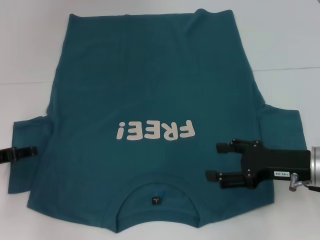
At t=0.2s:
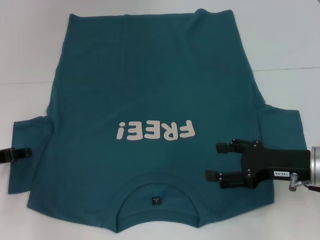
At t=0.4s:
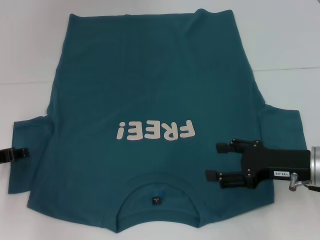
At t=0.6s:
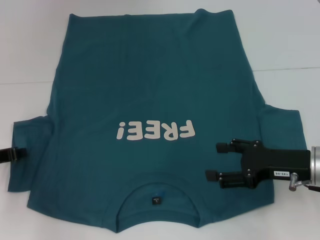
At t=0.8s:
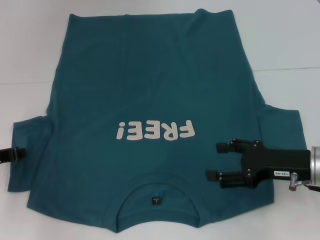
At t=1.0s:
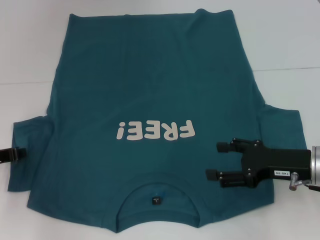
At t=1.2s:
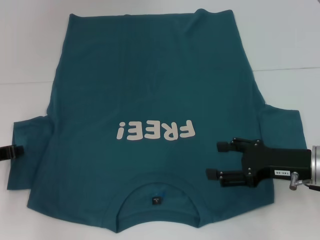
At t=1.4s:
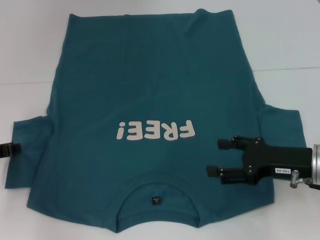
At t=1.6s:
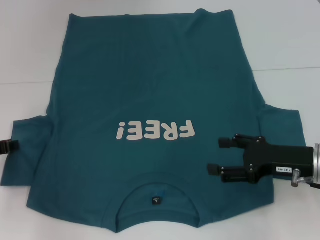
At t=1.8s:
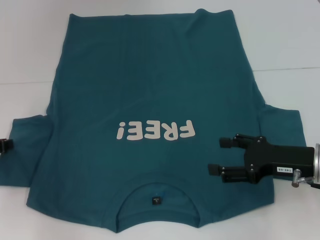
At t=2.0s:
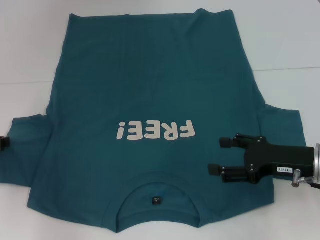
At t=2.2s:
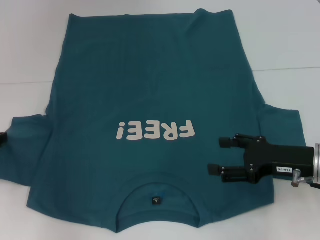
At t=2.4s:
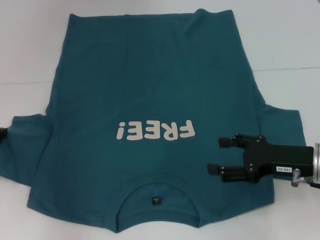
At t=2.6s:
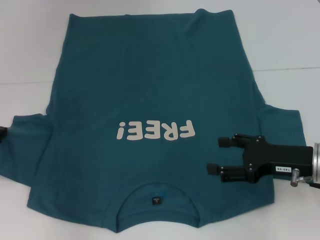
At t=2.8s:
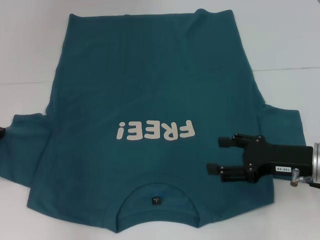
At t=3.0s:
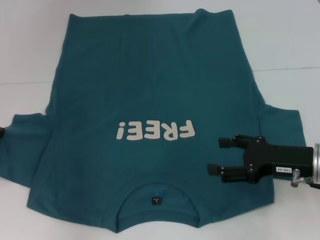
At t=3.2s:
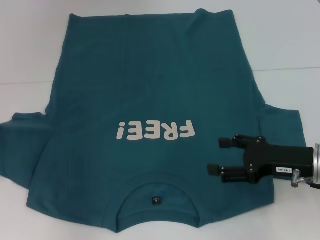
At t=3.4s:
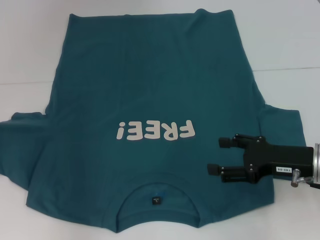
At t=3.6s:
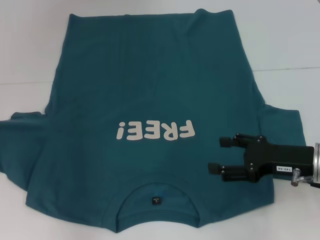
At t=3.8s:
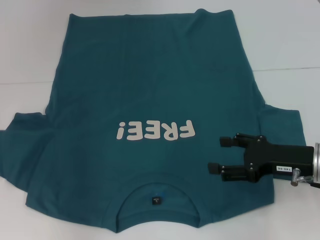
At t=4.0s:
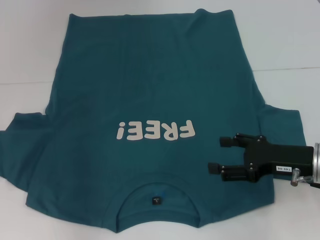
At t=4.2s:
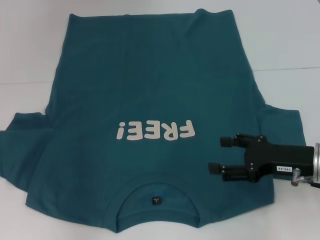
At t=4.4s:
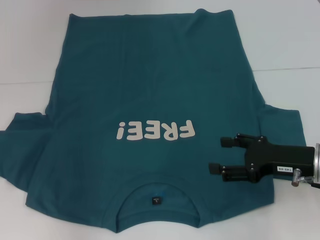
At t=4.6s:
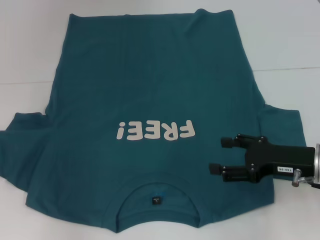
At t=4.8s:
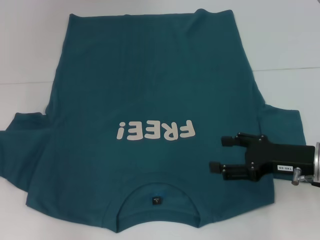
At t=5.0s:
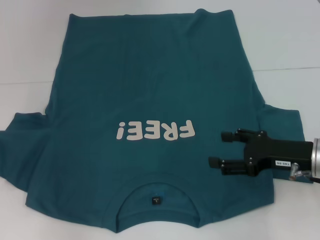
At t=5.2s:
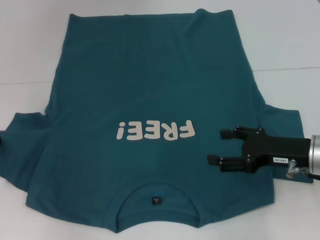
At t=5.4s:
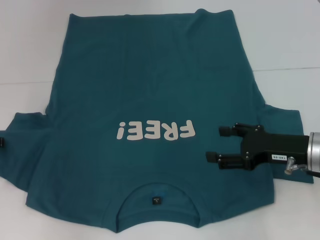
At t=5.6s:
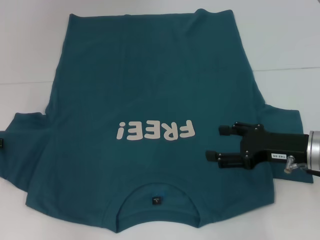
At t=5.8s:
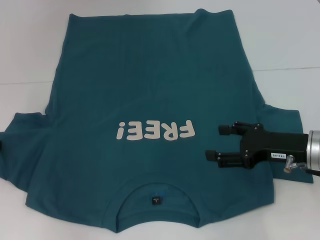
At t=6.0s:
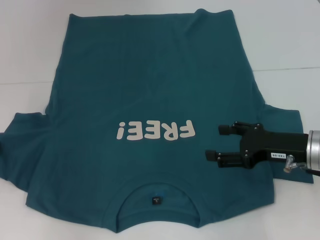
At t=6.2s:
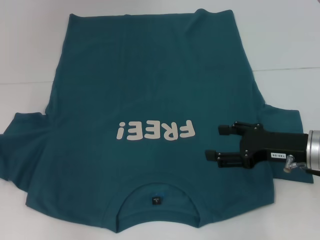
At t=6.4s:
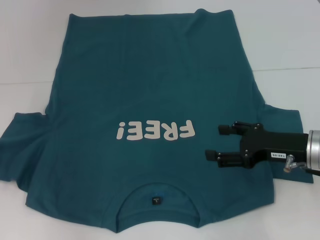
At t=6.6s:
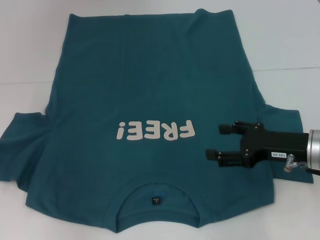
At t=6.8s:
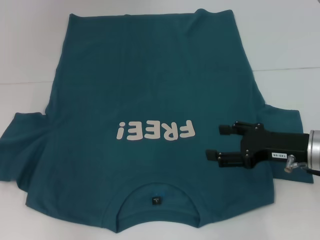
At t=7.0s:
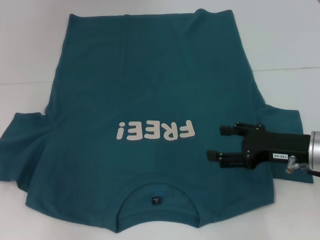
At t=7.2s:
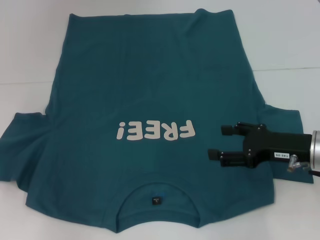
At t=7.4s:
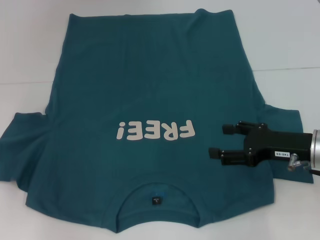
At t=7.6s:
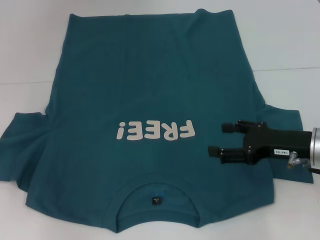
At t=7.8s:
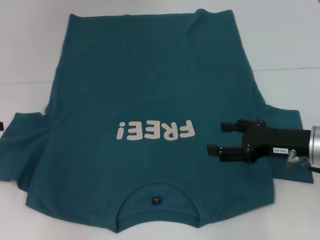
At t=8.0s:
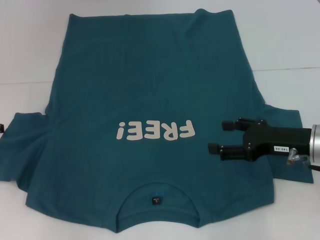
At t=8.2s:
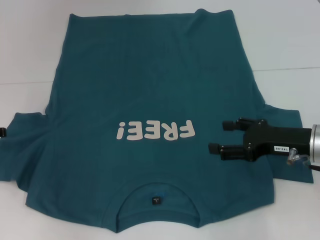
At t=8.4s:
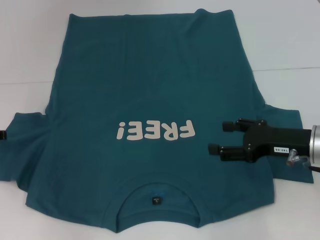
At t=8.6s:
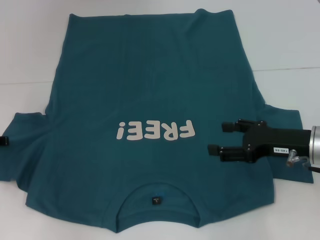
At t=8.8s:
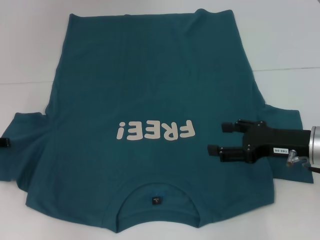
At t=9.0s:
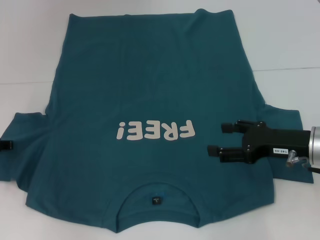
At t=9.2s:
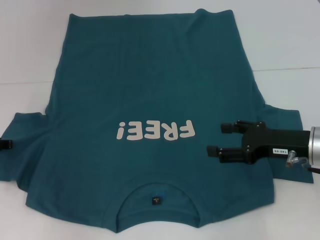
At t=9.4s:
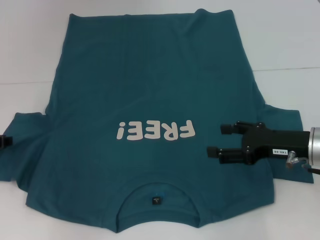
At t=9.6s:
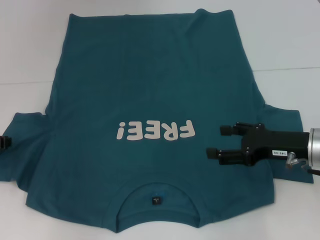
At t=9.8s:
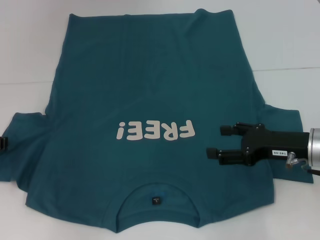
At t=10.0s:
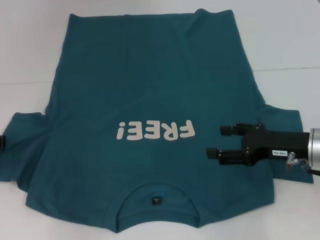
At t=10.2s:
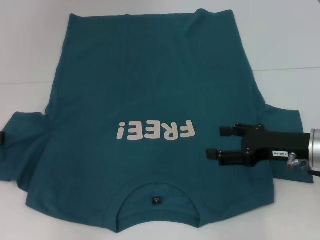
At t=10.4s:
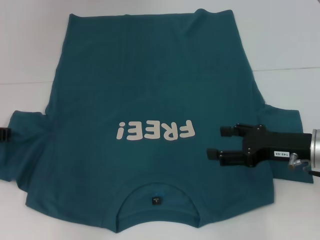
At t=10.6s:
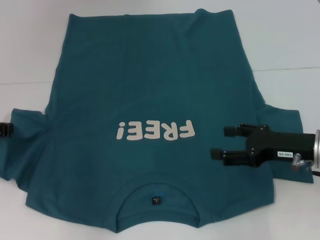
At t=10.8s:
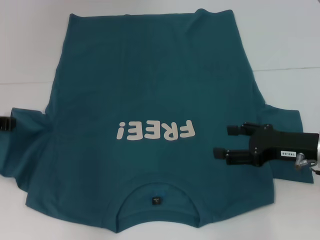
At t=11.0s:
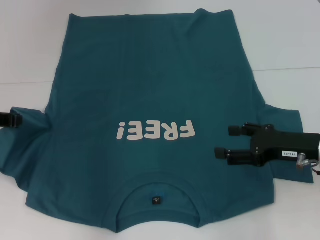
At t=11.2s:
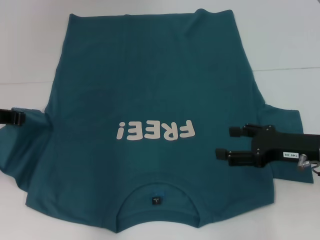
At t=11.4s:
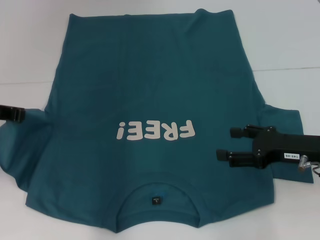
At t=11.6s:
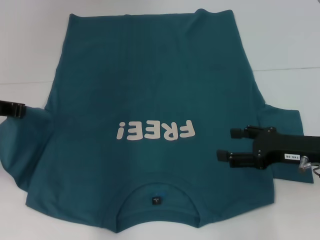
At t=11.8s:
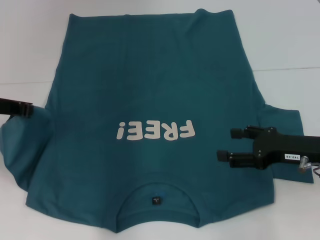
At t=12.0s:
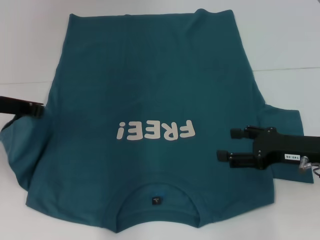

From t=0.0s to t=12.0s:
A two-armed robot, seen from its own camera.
From t=0.0s to t=1.6s: The left gripper closes.
From t=10.4s to t=12.0s: The left gripper moves upward and to the right, some 10 cm.

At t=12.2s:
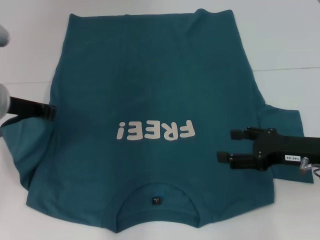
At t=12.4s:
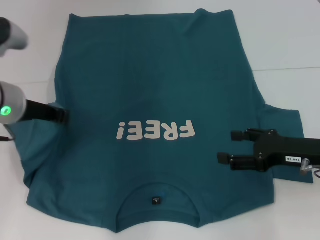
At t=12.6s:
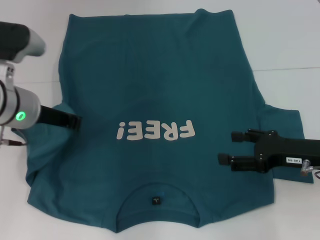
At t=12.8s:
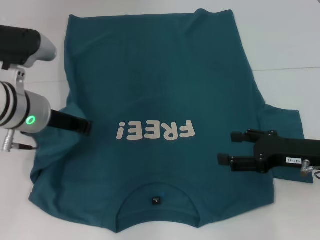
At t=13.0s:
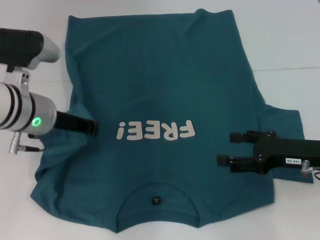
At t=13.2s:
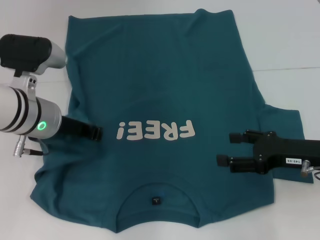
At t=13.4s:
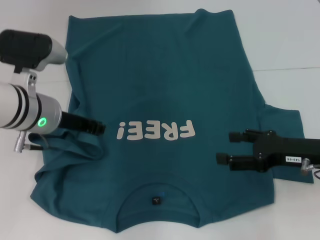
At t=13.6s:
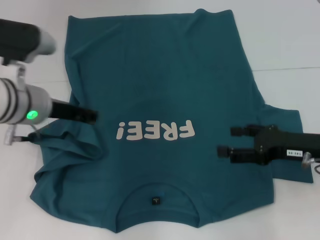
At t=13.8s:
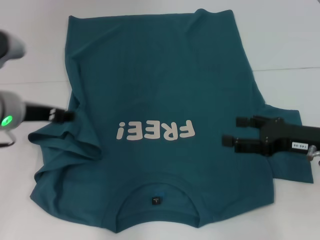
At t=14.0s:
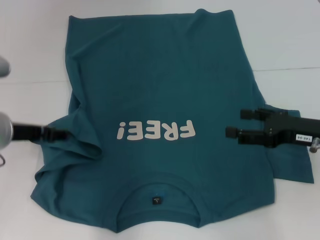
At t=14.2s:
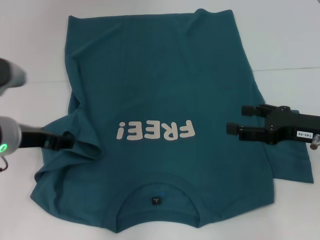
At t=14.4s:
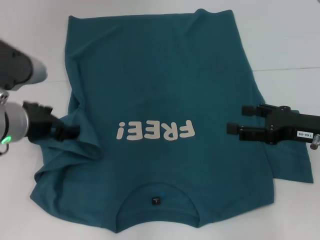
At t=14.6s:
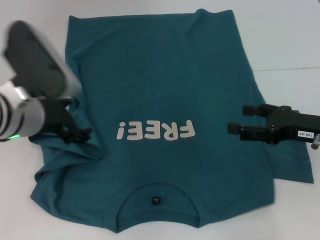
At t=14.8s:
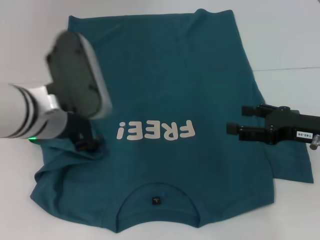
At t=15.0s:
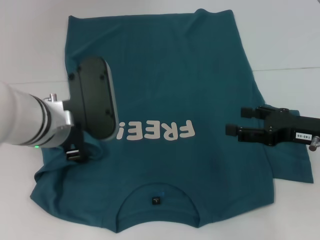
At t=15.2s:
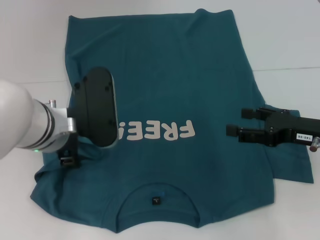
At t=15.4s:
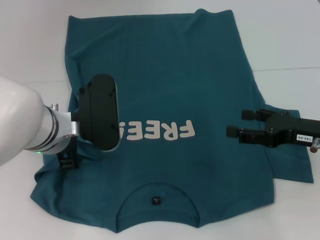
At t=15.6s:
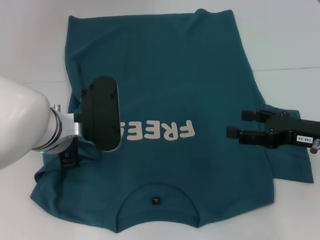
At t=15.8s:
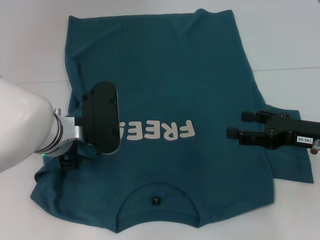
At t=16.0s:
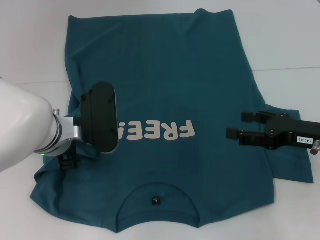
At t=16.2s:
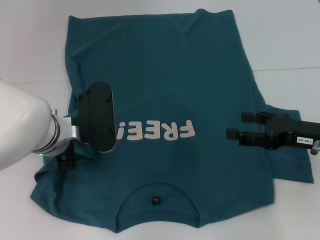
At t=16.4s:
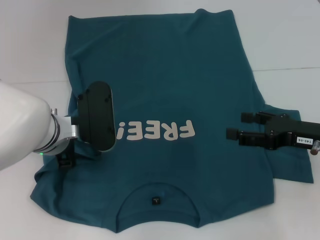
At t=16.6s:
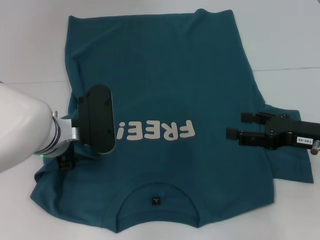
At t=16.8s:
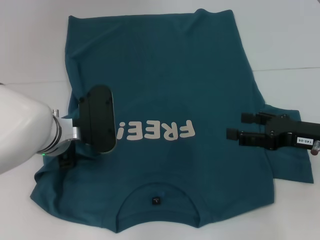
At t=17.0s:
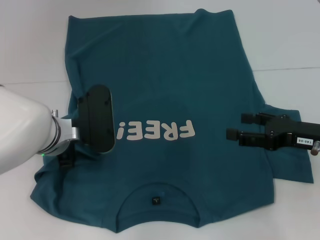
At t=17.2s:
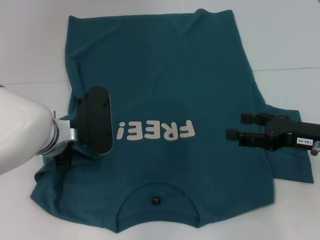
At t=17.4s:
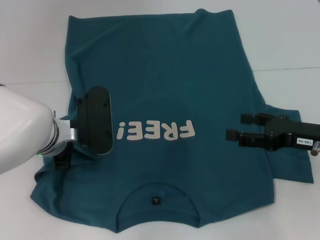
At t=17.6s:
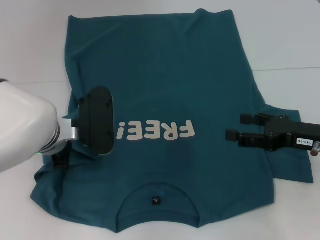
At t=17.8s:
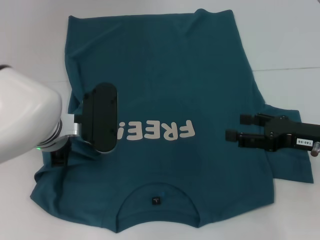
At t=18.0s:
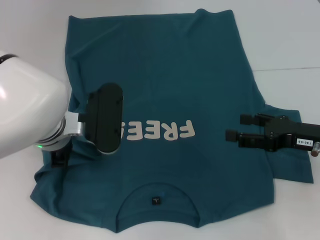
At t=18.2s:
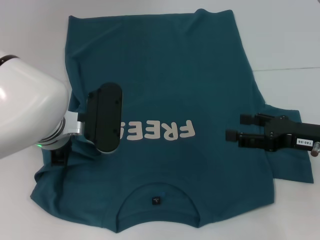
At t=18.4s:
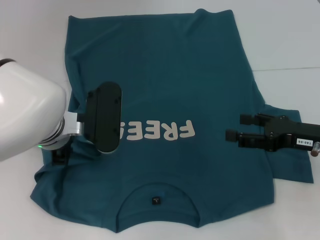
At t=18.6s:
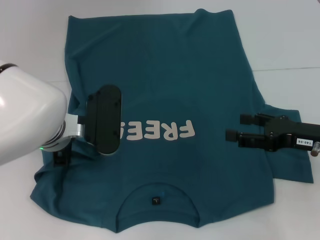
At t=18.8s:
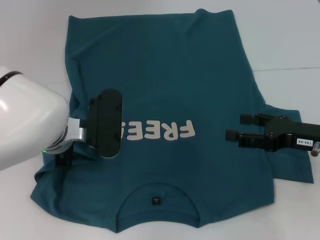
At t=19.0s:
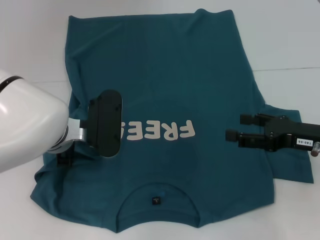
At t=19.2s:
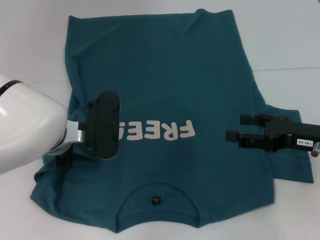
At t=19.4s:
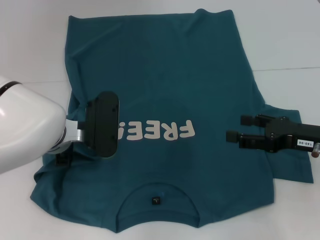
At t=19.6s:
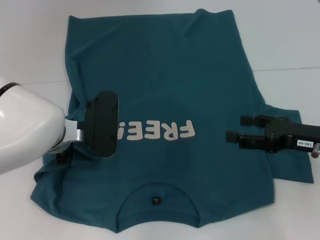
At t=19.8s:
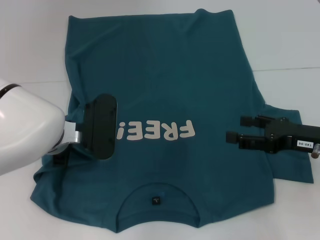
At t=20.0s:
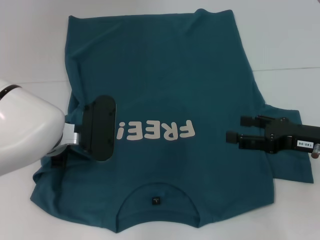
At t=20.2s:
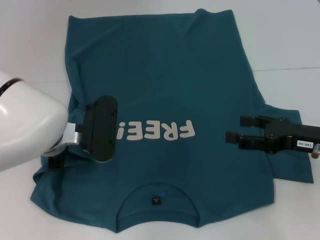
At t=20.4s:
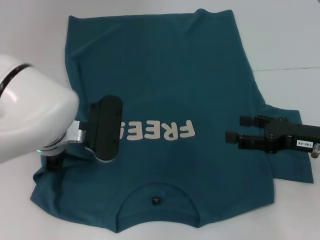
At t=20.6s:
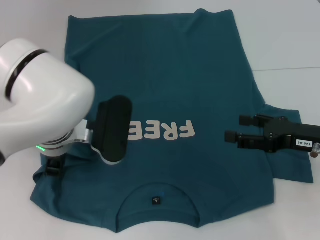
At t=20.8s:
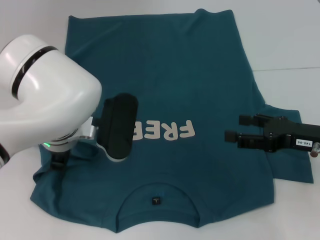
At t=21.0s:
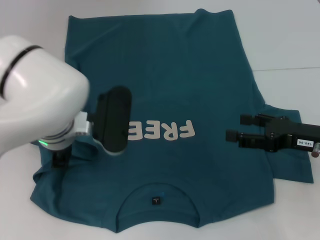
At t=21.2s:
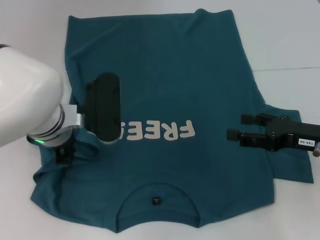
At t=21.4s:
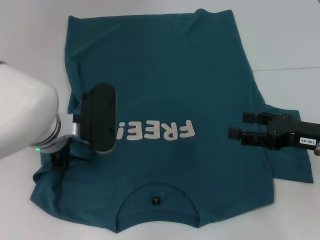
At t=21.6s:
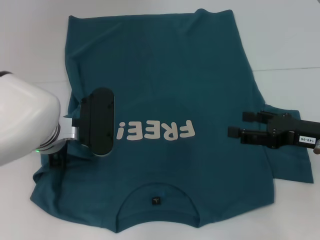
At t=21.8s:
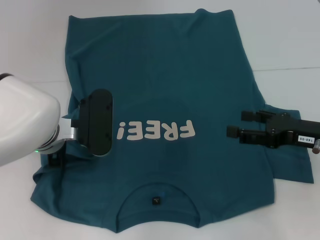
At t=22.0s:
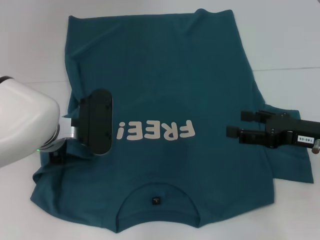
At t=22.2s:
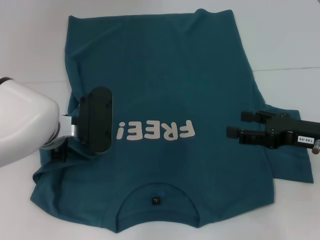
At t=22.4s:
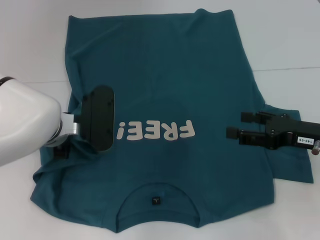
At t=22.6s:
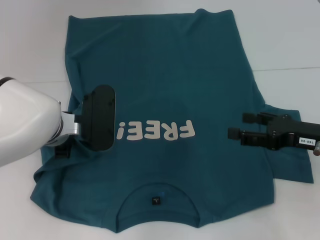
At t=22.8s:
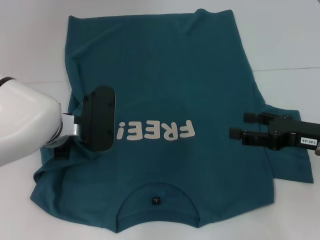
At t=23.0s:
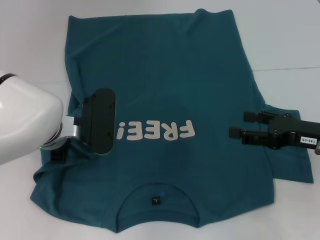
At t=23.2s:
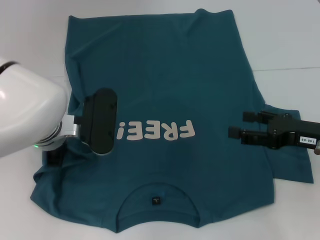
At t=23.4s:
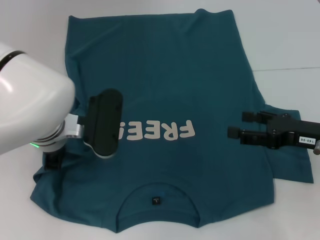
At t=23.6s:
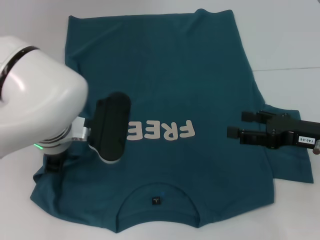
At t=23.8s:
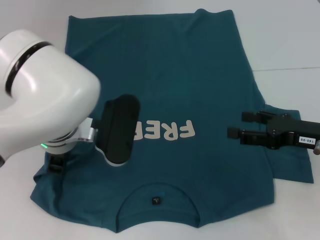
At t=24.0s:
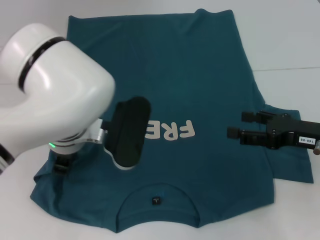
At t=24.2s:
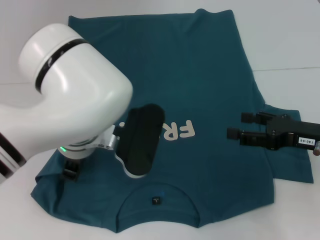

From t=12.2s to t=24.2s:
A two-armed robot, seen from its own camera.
From t=13.8s to t=15.2s: The left gripper shifts some 10 cm to the right, and opens.
From t=15.2s to t=16.6s: The left gripper shifts by roughly 5 cm, and closes up.
From t=16.6s to t=18.2s: The left gripper closes up.
From t=18.2s to t=21.2s: The grippers stay close to where they were, moving slightly.
From t=21.2s to t=22.6s: The left gripper opens and closes again.
From t=22.6s to t=24.2s: The left gripper is displaced to the right by roughly 5 cm.
